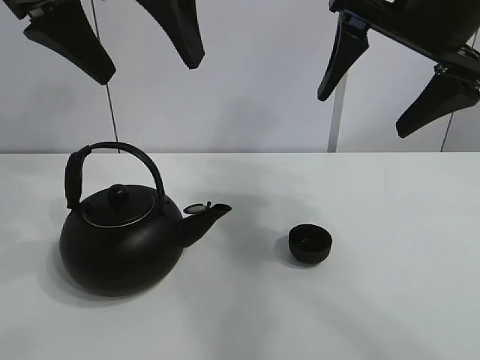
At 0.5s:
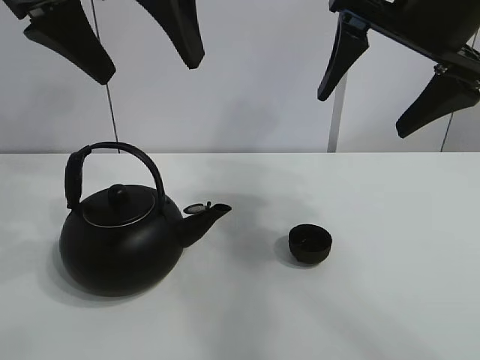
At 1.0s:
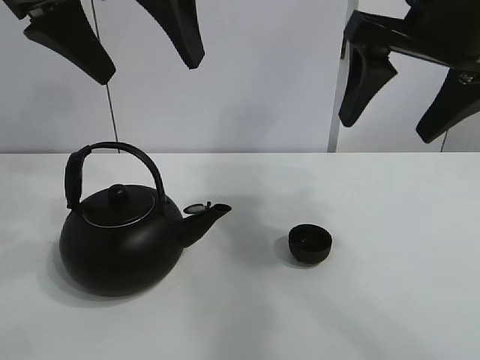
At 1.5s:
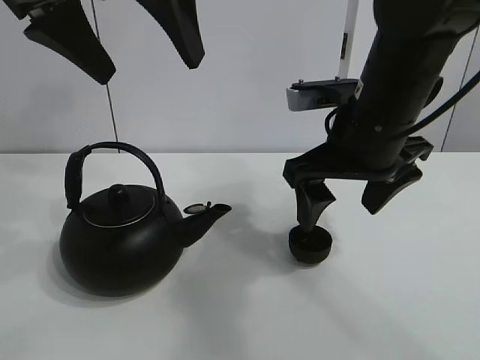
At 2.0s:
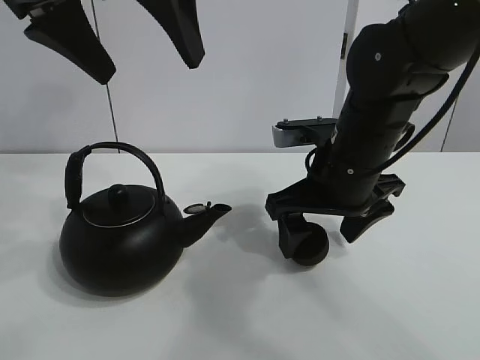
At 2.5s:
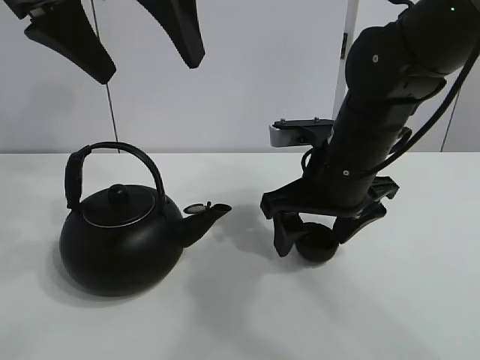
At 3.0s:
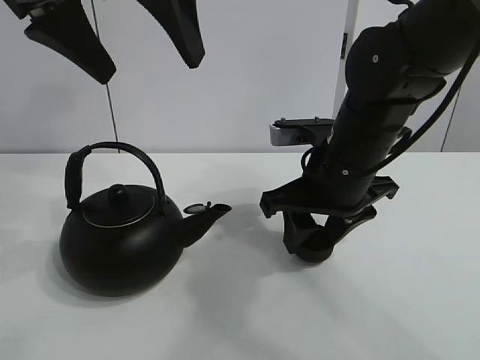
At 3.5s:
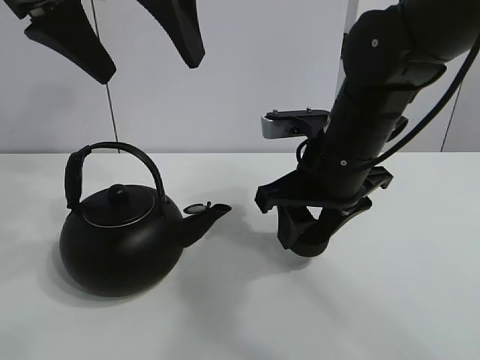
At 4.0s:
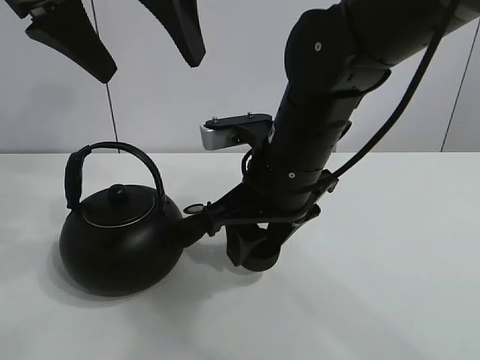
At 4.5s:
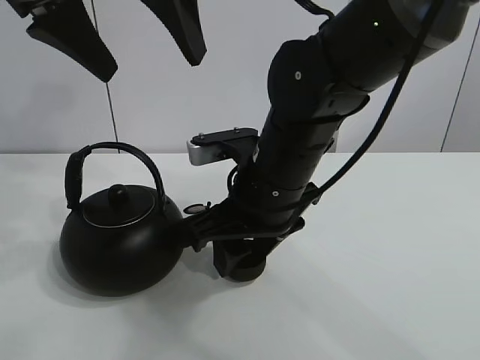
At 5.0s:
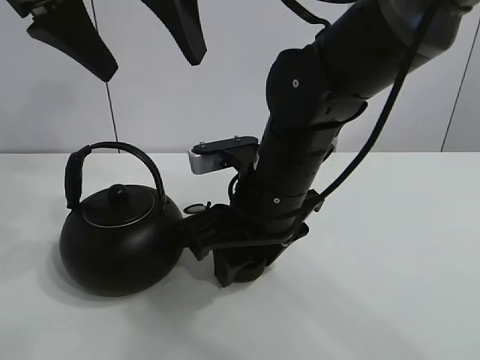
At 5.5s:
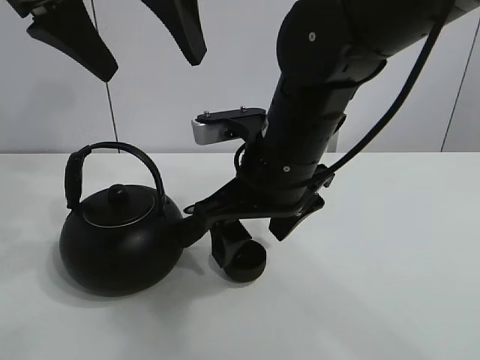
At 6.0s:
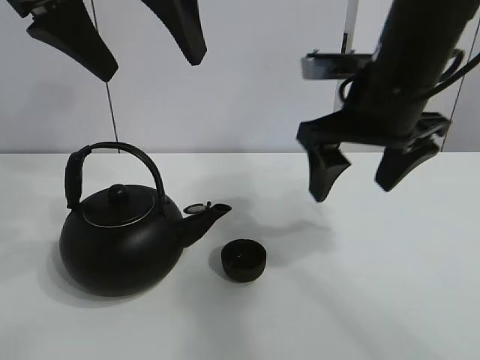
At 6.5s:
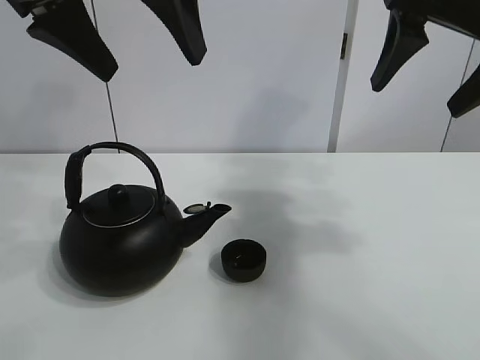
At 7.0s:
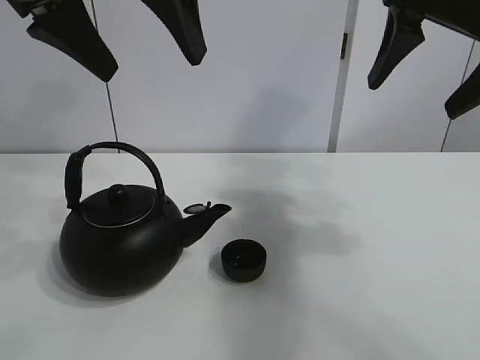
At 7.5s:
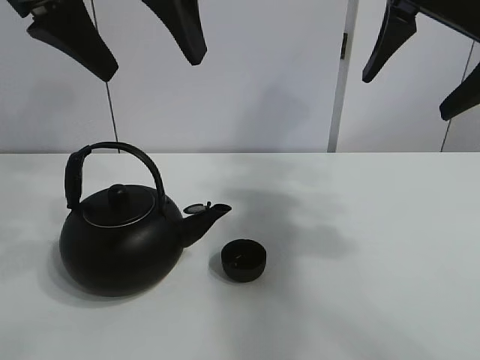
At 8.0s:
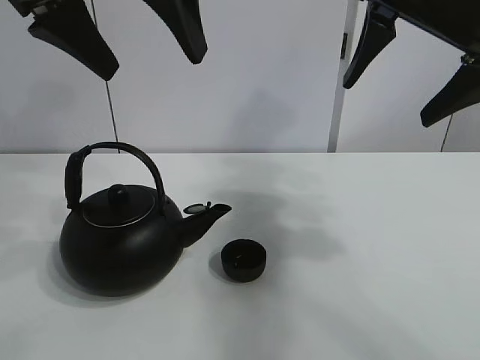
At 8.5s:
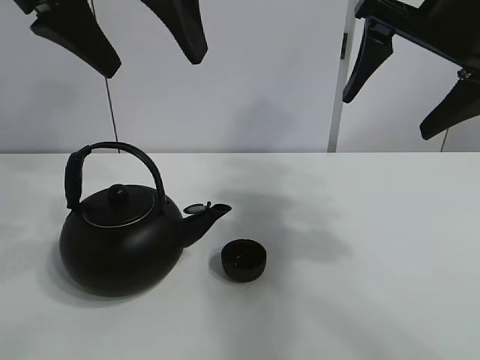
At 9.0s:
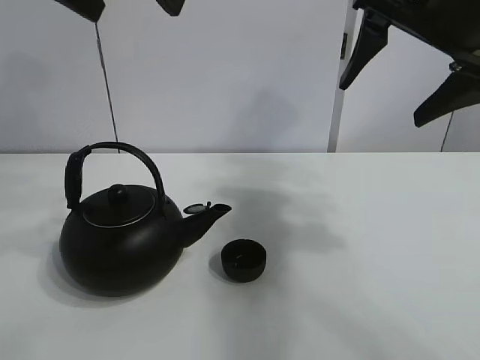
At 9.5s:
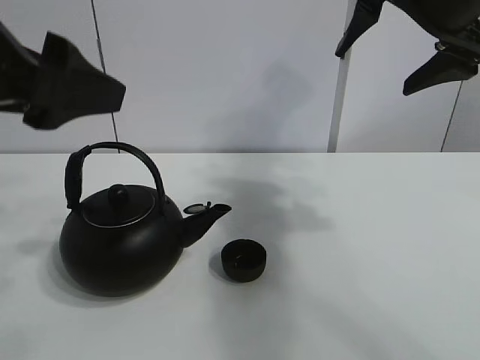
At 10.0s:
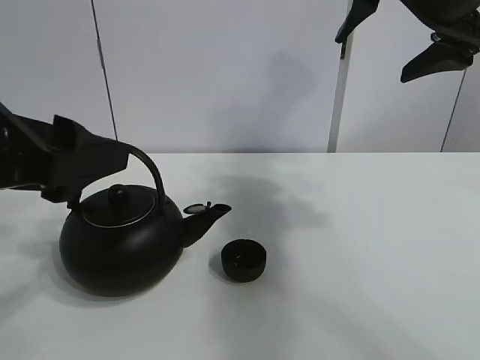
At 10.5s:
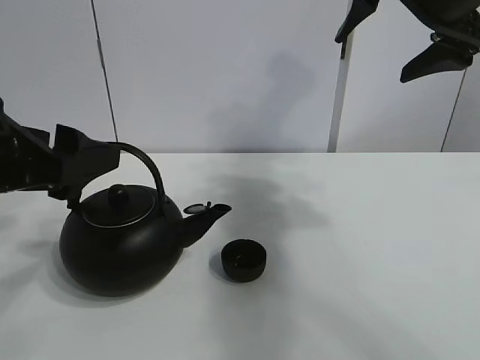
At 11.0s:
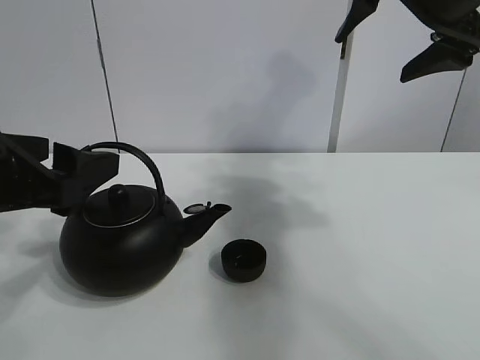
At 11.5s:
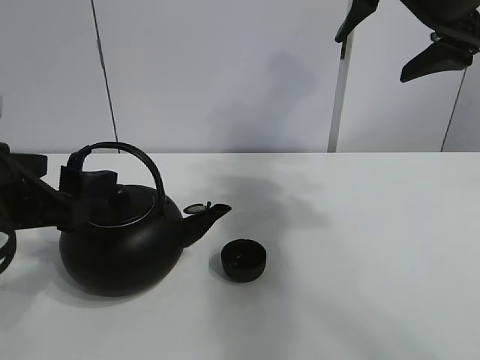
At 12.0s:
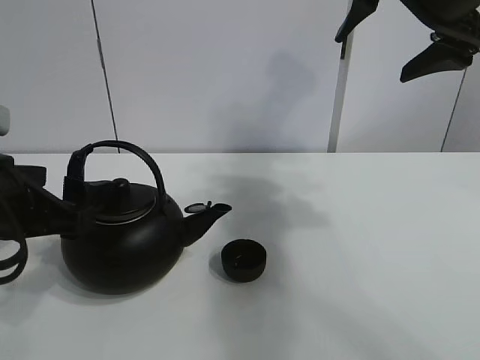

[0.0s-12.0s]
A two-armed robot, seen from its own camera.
Task of the whole recording: pour tea into the teacup.
Step, 0.0s to 3.0s: Pick up the teacup with the right gripper.
Step, 3.5s to 5.0s: Place the teacup in the center of view with the right gripper.
2.0s to 4.0s: The right gripper travels to the left by some 5 cm, and closes.
4.0s to 6.0s: The right gripper moves to the right and upward, about 10 cm, and opens up.
6.0s to 8.0s: The right gripper travels upward and to the right by roughly 10 cm.
8.0s to 10.0s: The left gripper moves downward, backward and to the left, some 20 cm.
10.0s to 12.0s: The left gripper shifts roughly 10 cm downward.

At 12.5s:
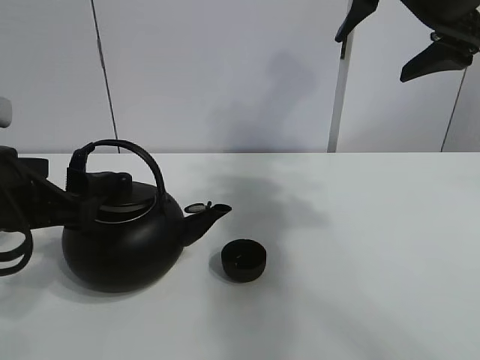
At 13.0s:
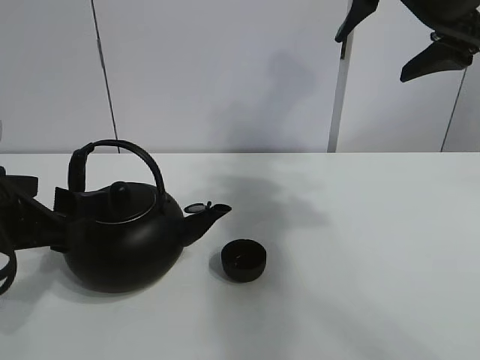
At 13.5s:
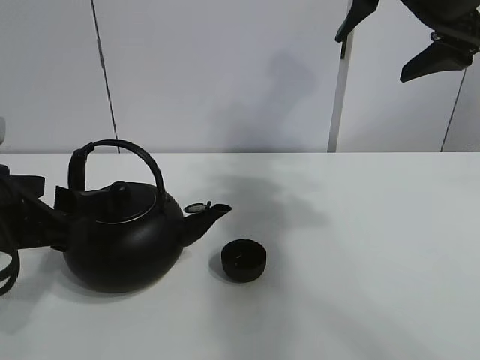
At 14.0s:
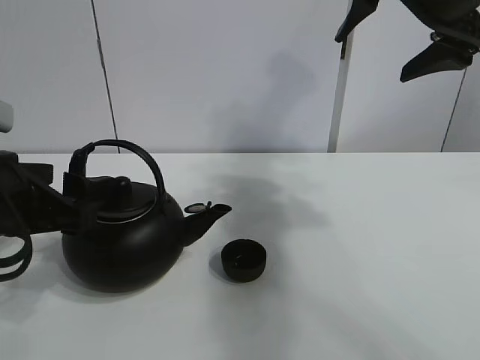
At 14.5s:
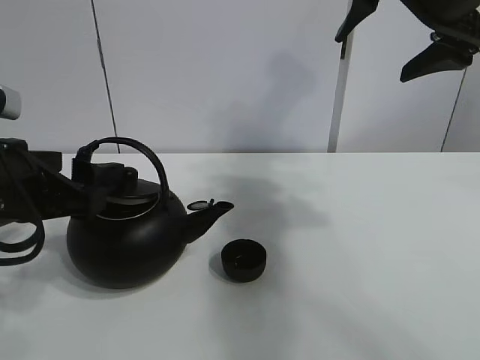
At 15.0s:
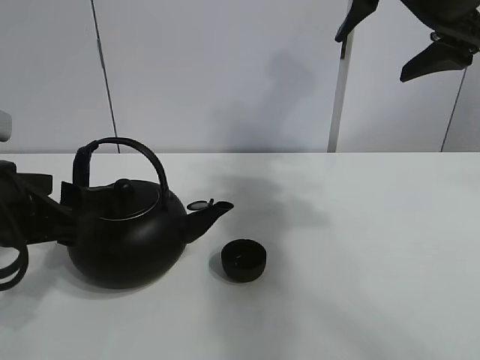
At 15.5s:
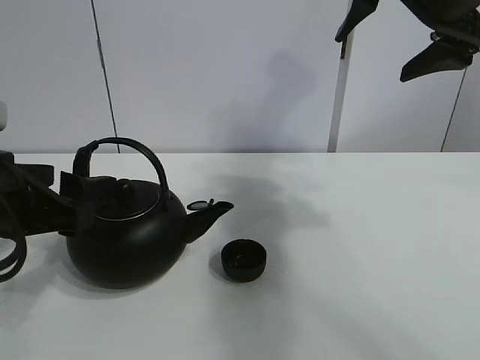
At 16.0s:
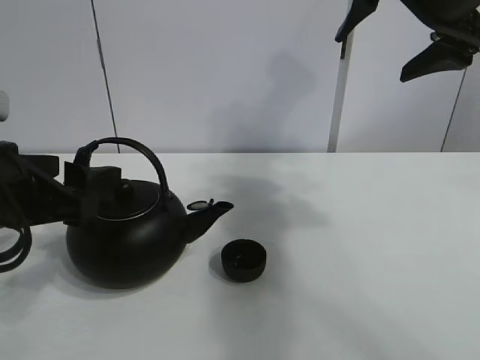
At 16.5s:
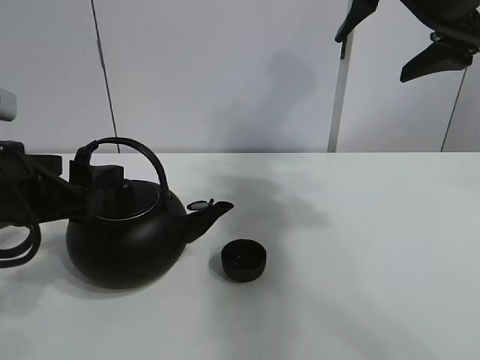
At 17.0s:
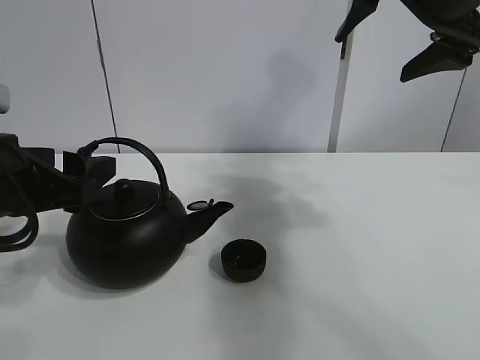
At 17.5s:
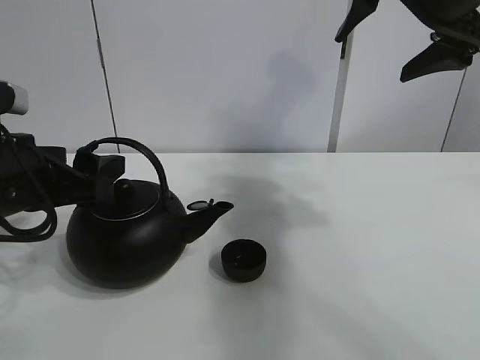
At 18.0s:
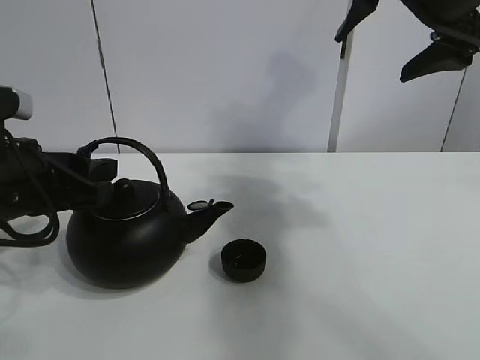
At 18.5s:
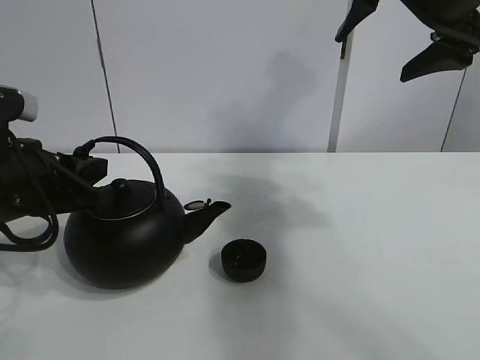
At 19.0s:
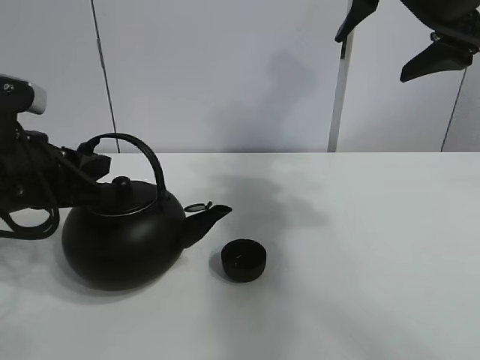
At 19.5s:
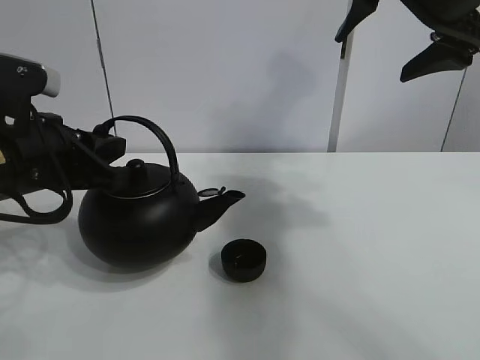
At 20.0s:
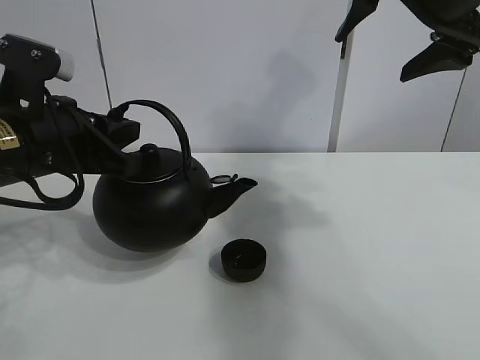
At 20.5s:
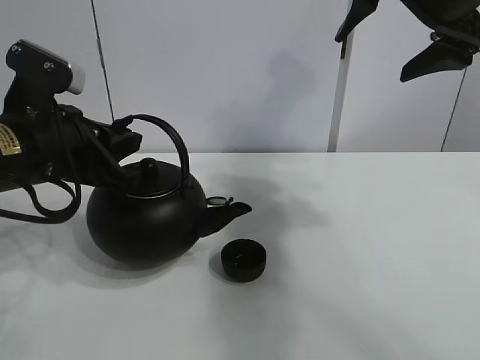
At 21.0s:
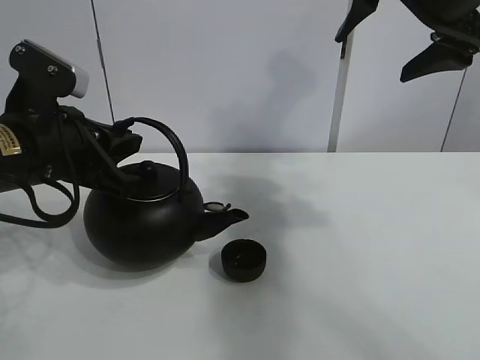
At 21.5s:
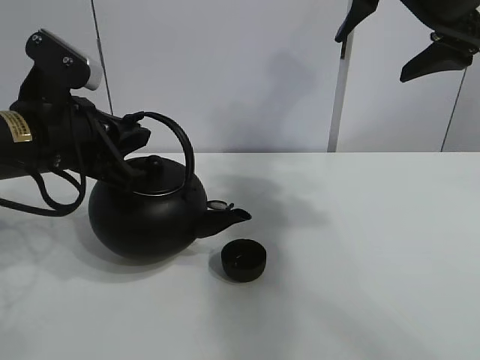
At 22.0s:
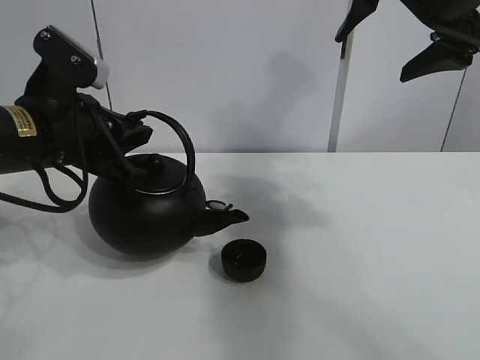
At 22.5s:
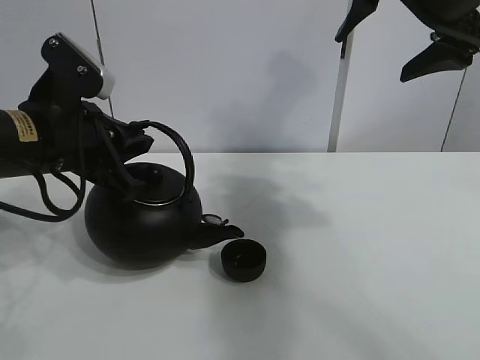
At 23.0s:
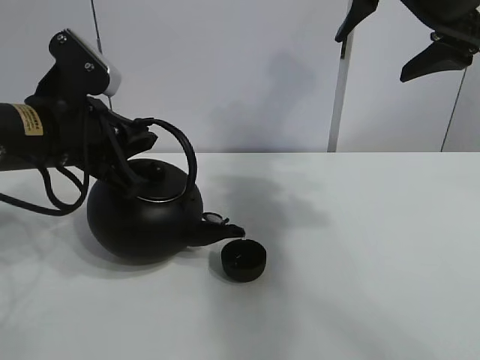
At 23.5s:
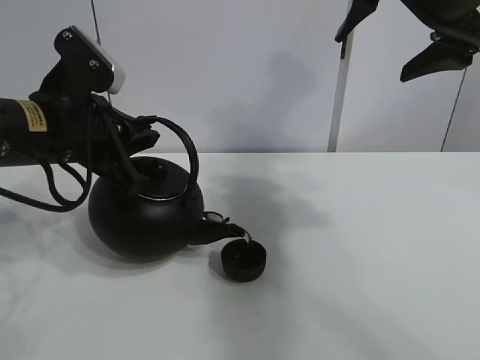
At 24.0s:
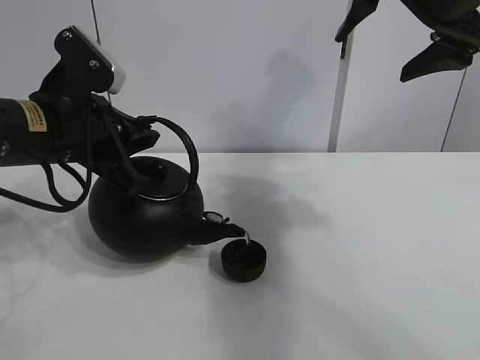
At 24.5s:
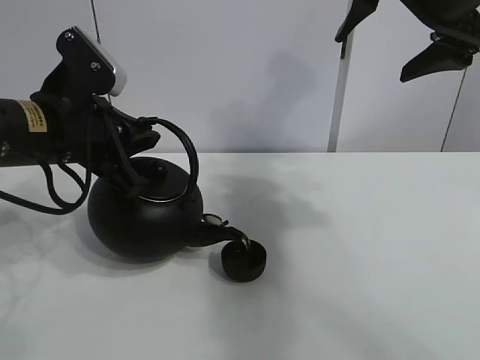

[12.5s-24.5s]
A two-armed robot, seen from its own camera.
Task of the whole recording: pour tea into the teacup.
Step, 12.5s to 18.0s: Pick up the teapot with the left gripper.
12.5s to 16.5s: The grippers make only small movements.
16.5s to 18.5s: The left gripper closes its fingers.
18.5s to 20.5s: The grippers stay close to where they were, moving slightly.
20.5s to 22.5s: The grippers move only a little.
22.5s to 24.5s: The two grippers keep their place.

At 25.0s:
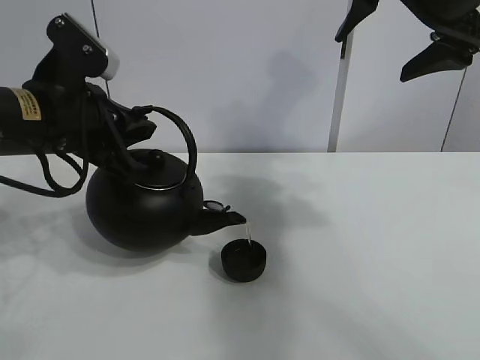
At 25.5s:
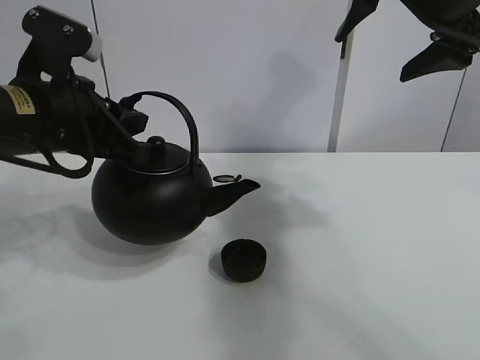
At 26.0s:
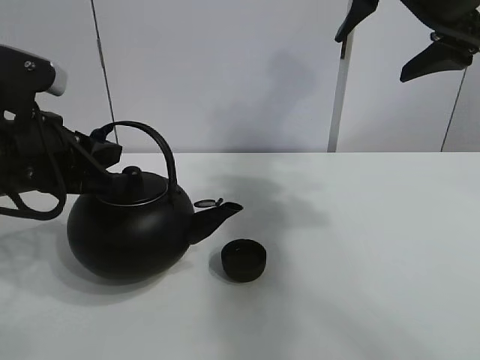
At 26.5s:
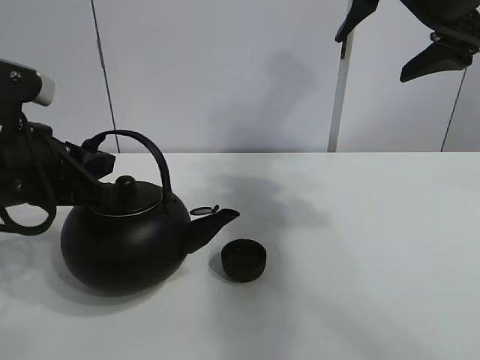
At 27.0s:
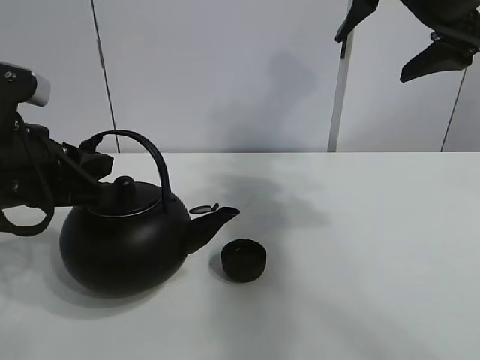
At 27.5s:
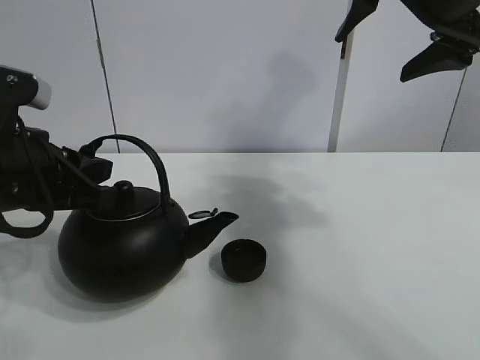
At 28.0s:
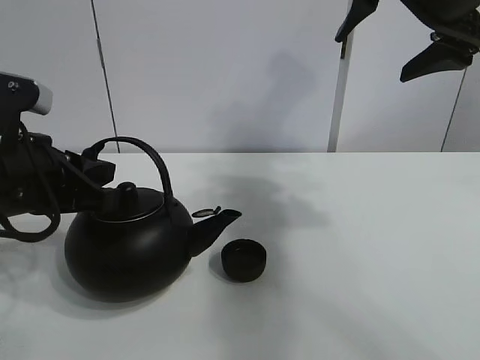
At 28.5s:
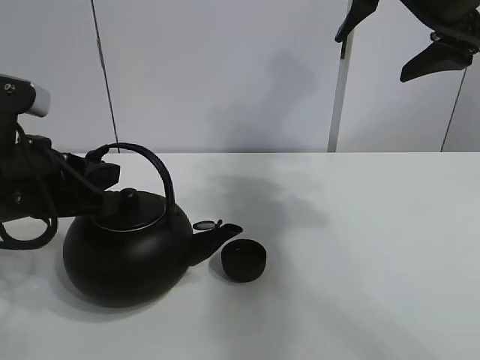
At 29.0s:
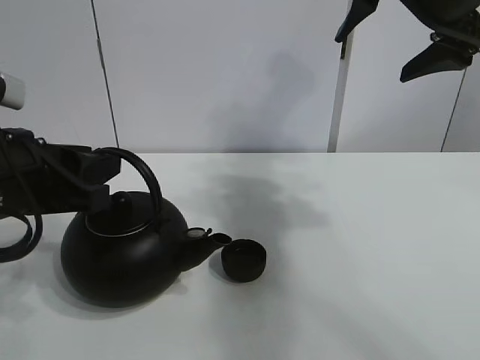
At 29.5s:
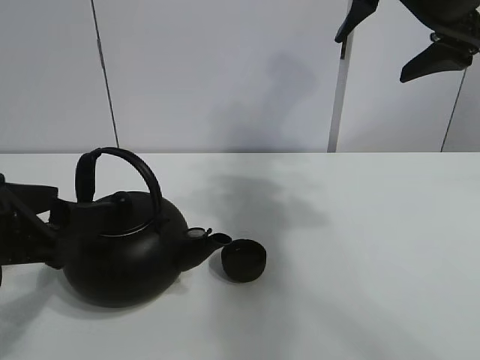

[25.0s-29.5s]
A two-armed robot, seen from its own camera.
Task of the whole recording: pour tea into the teacup.
25.0s to 27.0s: The left gripper shifts approximately 5 cm backward.
27.0s to 29.5s: The left gripper travels backward by approximately 5 cm, and opens.
